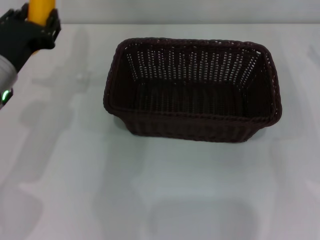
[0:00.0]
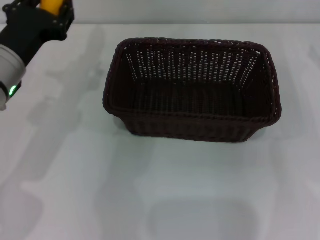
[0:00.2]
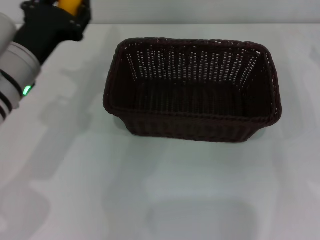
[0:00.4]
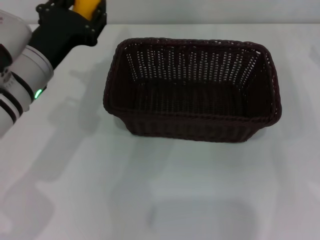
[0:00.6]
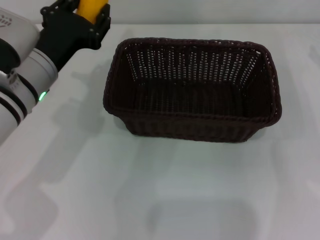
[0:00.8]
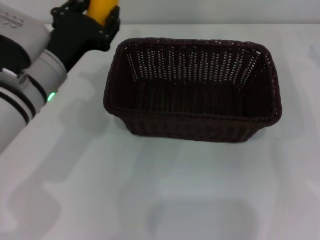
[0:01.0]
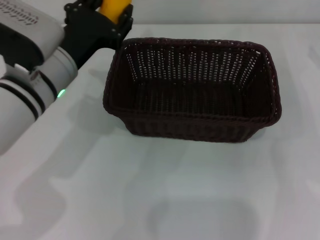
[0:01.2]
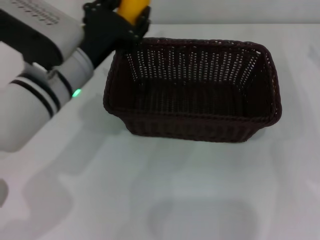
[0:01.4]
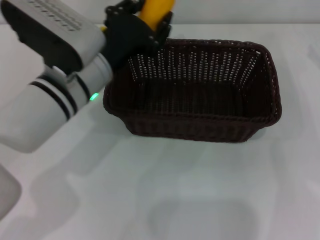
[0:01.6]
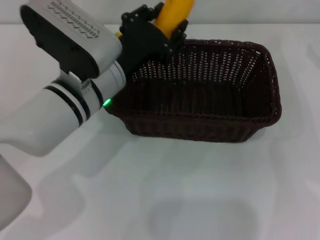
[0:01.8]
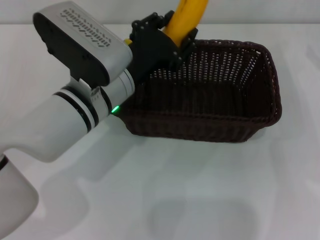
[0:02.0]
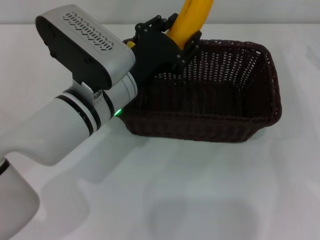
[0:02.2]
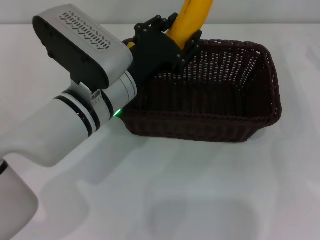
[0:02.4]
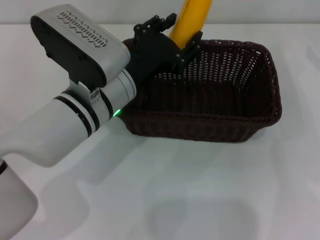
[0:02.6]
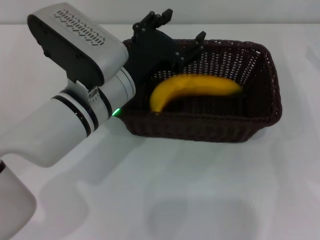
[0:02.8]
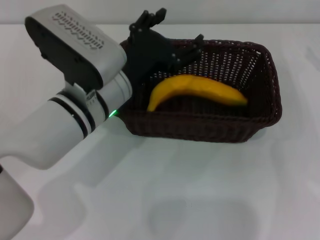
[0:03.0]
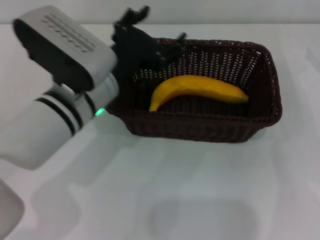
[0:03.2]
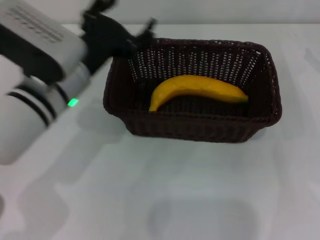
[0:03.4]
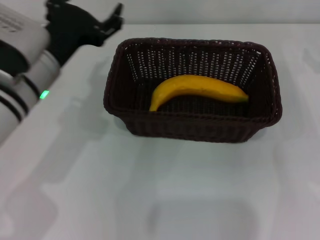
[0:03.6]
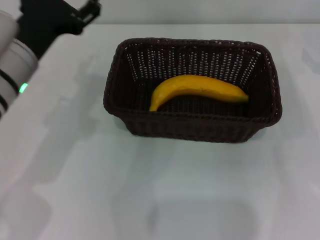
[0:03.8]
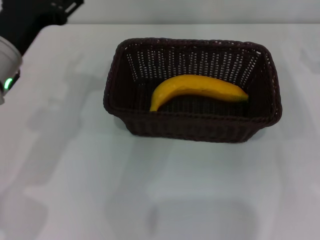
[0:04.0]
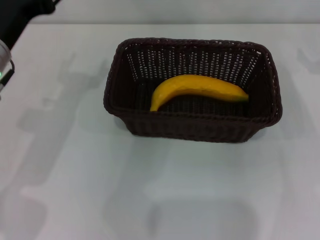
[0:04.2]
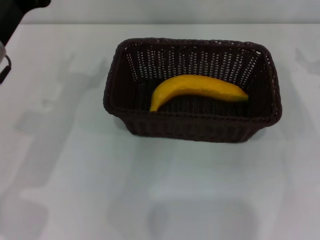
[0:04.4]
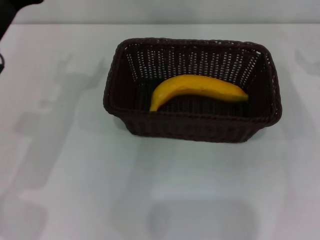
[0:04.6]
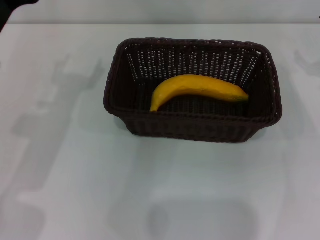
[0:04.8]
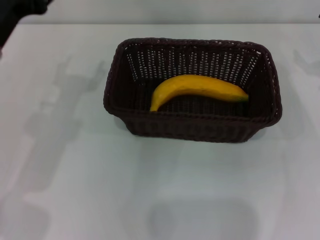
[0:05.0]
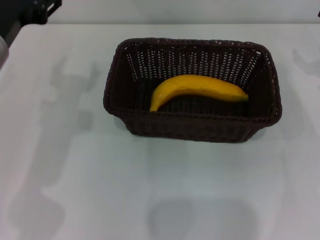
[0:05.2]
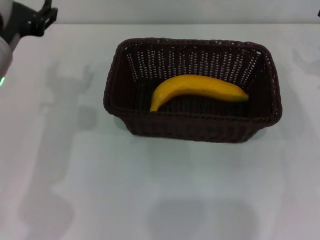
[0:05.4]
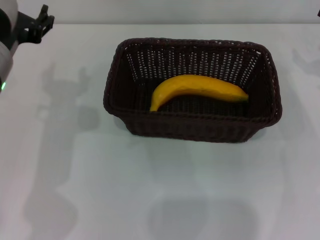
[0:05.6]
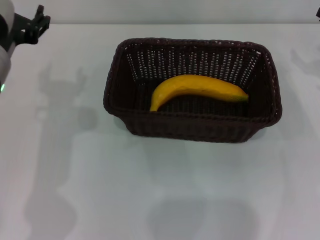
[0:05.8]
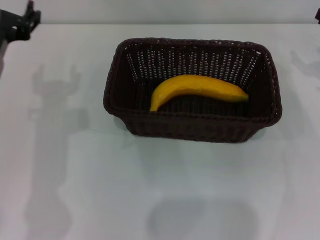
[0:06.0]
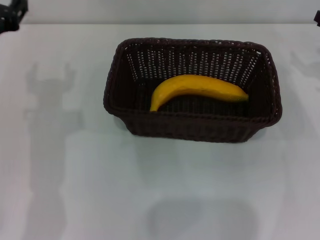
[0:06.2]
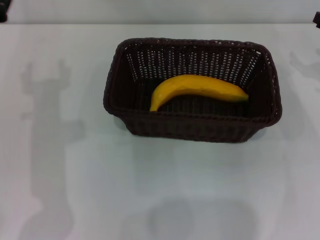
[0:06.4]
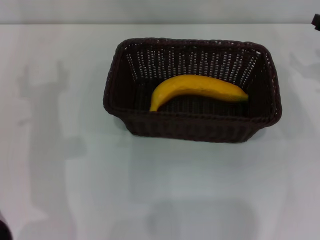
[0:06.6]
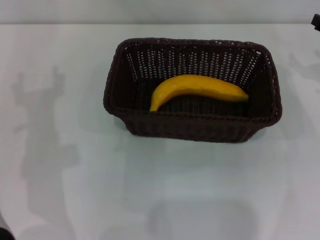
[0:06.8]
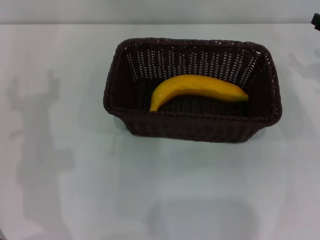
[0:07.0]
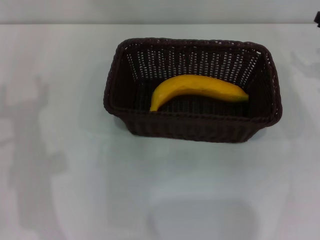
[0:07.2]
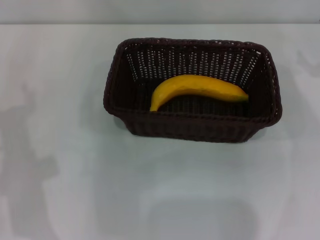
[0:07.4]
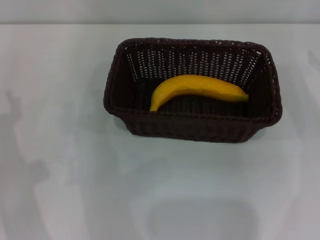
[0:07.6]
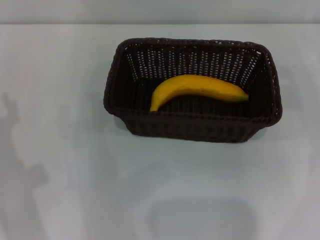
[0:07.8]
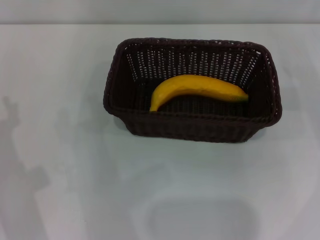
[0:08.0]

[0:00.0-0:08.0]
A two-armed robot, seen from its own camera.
Step, 0.0 to 2.6 s: Place the banana into the dark basket with the left gripper.
0.0 to 1.6 s: The left gripper goes roughly 10 cm to the right.
1.6 to 3.2 s: The left gripper opens its fingers.
3.2 to 4.8 s: The left gripper travels to the left and upward by approximately 10 cm.
6.4 to 8.0 s: The left gripper travels backward and downward by roughly 10 cm.

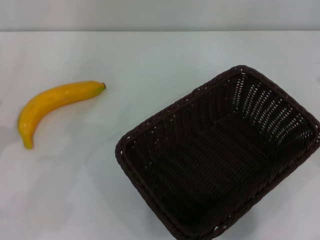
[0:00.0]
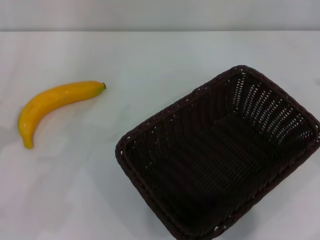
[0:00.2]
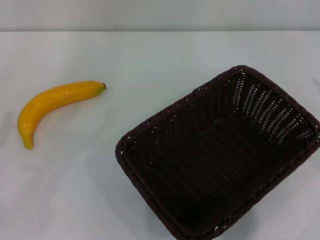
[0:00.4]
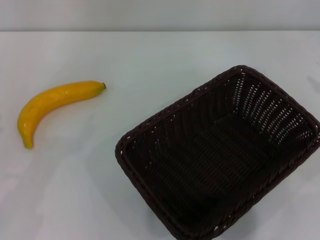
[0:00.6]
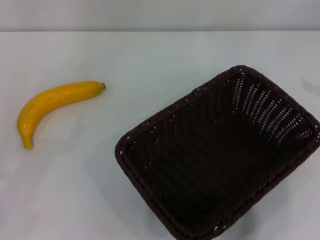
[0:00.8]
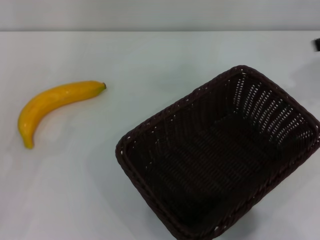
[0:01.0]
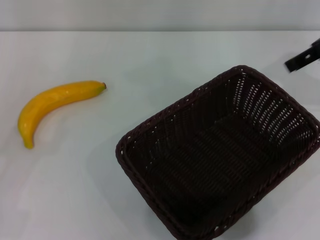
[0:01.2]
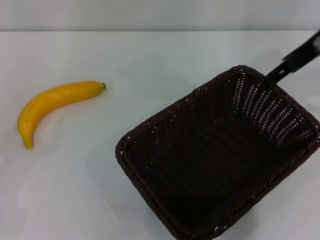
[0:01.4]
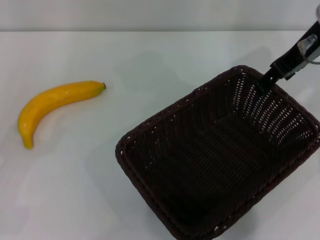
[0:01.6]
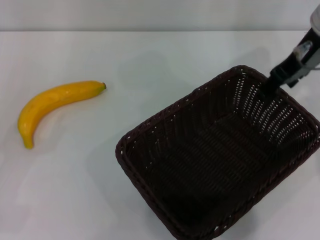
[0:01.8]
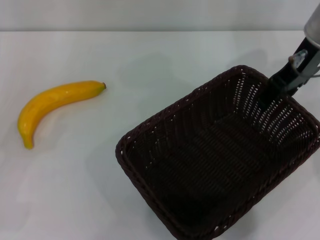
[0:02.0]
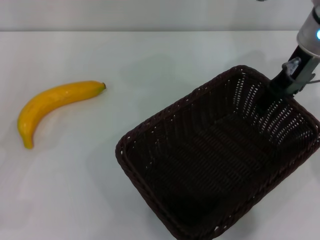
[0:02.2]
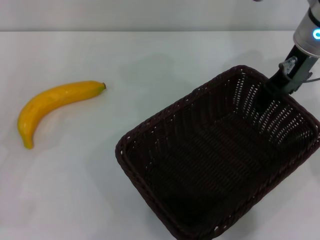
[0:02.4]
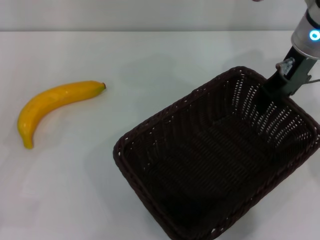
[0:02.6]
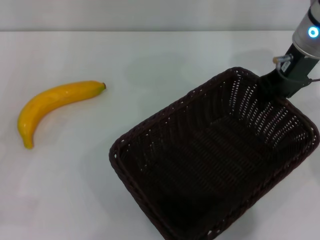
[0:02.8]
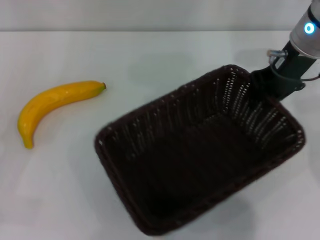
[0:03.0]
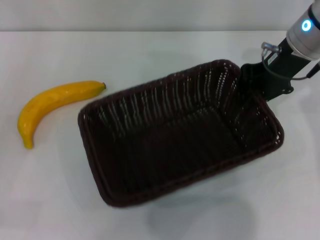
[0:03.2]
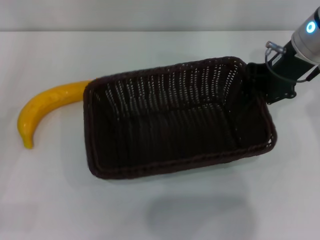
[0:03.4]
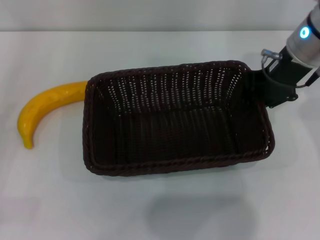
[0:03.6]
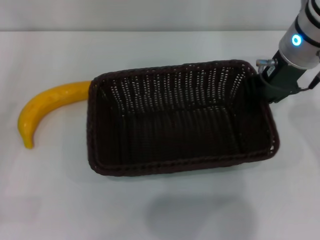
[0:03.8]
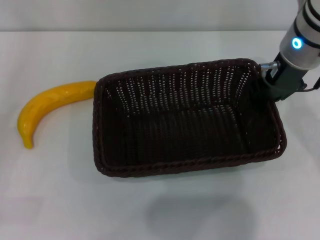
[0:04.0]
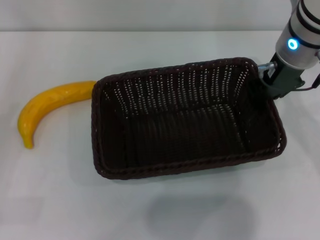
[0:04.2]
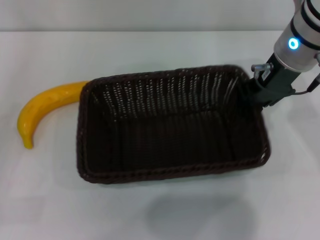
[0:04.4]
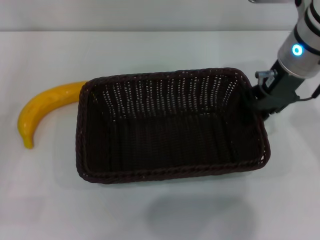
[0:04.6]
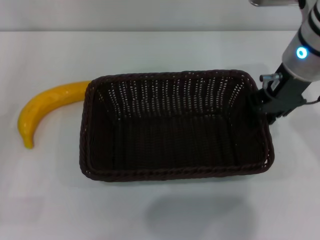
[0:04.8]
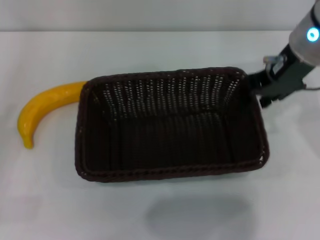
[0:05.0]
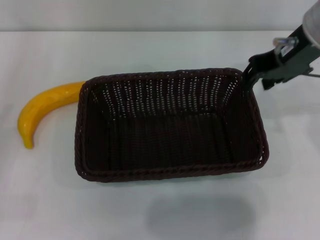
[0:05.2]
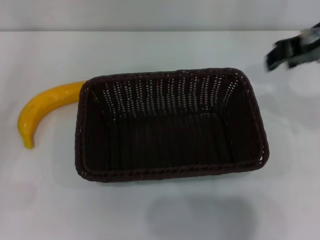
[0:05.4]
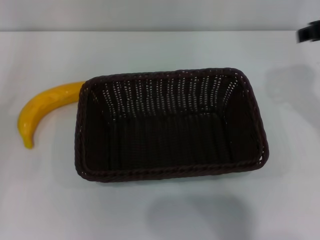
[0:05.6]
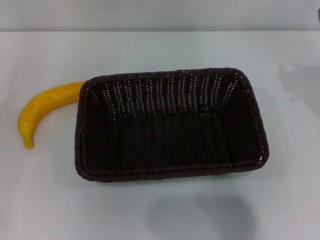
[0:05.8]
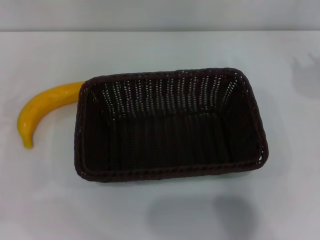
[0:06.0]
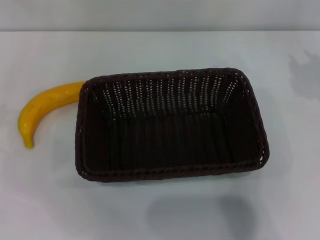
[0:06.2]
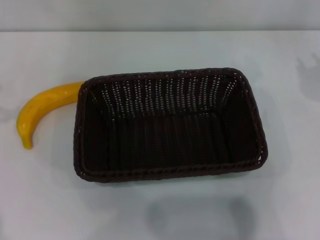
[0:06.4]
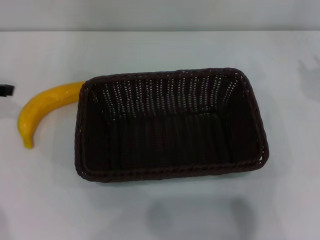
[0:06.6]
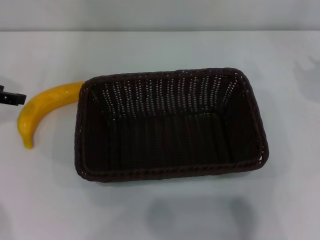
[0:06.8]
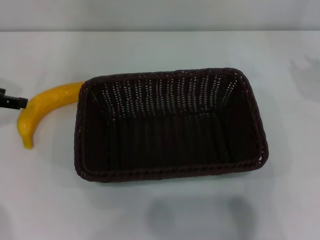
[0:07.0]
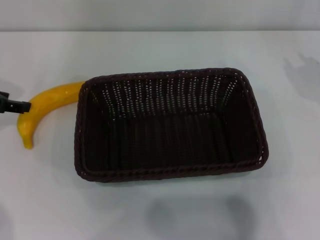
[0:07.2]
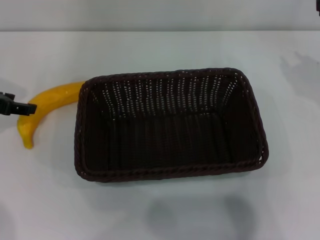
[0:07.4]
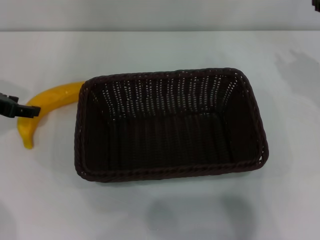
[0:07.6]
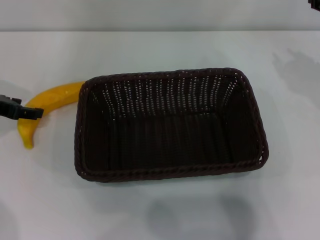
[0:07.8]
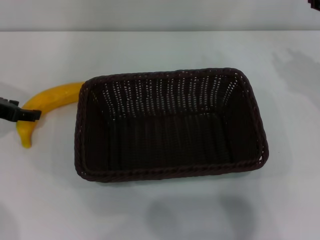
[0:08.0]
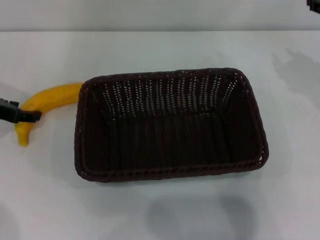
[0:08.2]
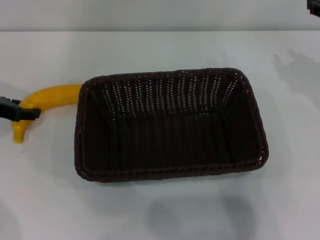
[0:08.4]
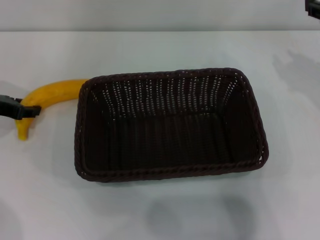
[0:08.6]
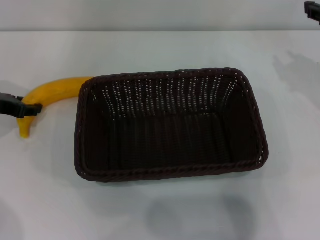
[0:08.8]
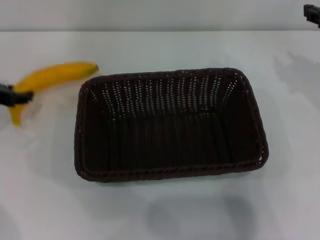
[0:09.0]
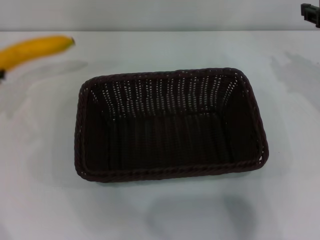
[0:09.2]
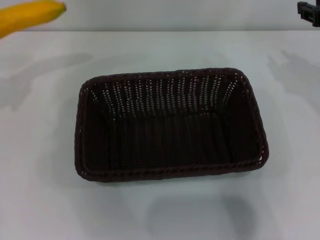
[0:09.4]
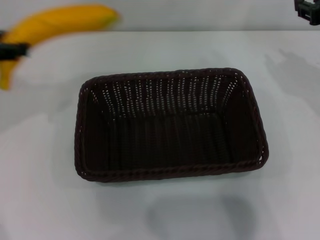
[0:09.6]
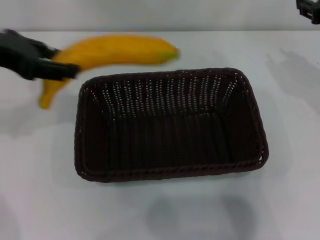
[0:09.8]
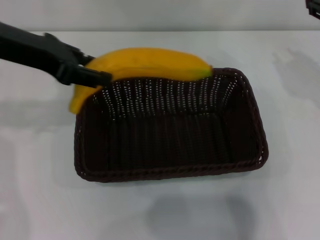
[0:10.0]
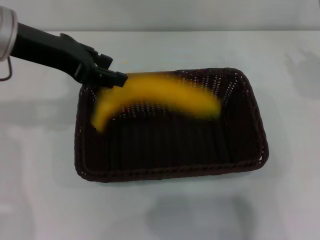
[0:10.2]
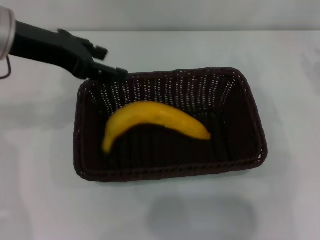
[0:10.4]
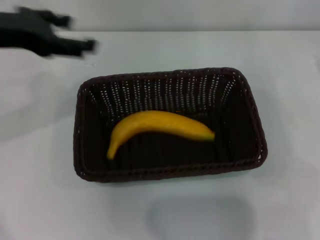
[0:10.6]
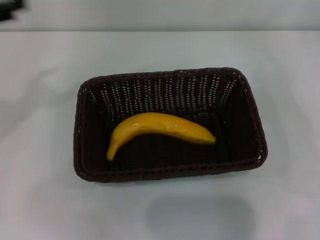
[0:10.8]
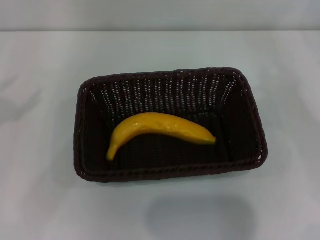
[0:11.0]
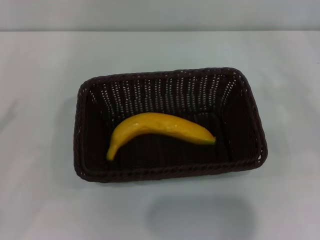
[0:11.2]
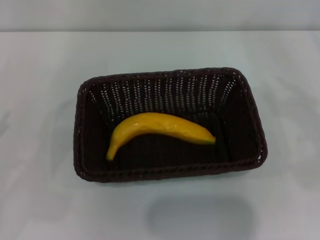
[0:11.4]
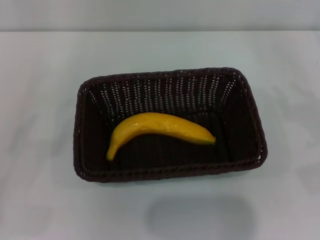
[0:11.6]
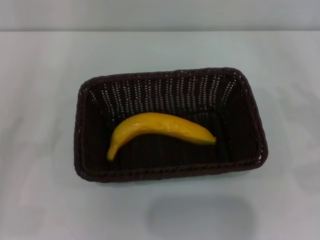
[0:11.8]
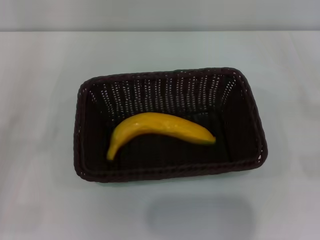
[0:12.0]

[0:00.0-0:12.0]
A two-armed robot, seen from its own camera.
Step, 0.0 to 3.0 s: Pick up the dark basket with the right gripper.
Step, 3.2 to 5.2 s: Place the dark basket in the center of view with the right gripper.
Step, 5.4 to 9.0 s: Pick up the banana with the left gripper.
Step, 9.2 to 10.4 s: Place the banana into the dark basket with the left gripper.
0.0 to 1.6 s: The right gripper shifts some 25 cm to the left and forward, and opens its fingers.
1.6 to 3.0 s: The right gripper closes.
4.4 to 6.0 s: The right gripper heads to the right, covering approximately 15 cm, while the left gripper heads forward and upward, covering some 15 cm.
6.0 to 7.6 s: The left gripper is displaced to the right, downward and forward by about 15 cm.
7.6 to 9.0 s: The left gripper closes up.
9.0 to 10.4 s: The right gripper heads to the right, covering roughly 5 cm. Meanwhile the left gripper heads upward and to the right, covering some 20 cm.
10.4 to 12.0 s: The left gripper travels to the left, downward and backward by roughly 30 cm, and opens its fingers. The right gripper goes about 20 cm downward, to the right and backward.

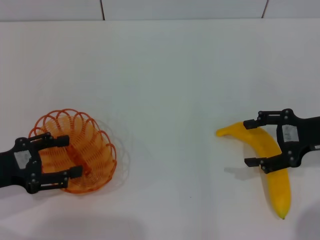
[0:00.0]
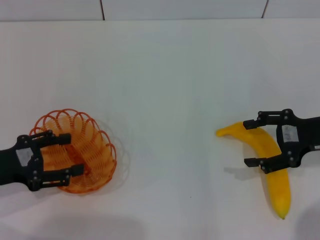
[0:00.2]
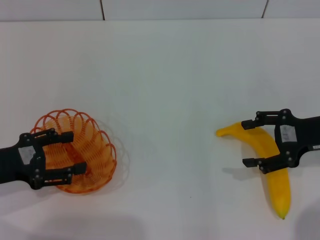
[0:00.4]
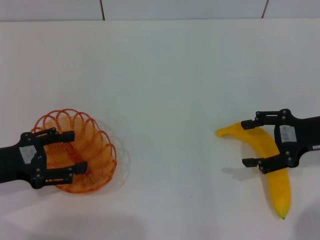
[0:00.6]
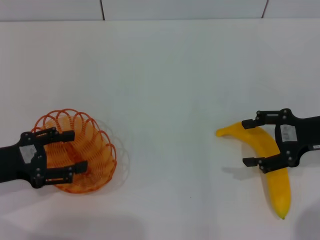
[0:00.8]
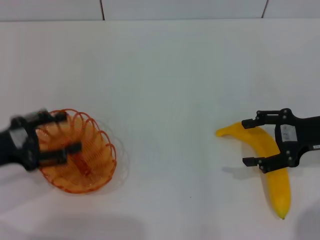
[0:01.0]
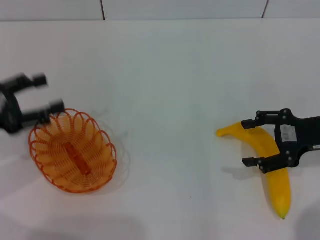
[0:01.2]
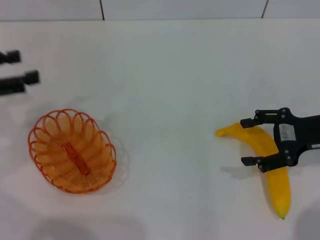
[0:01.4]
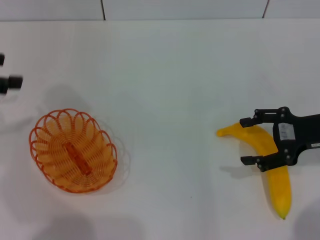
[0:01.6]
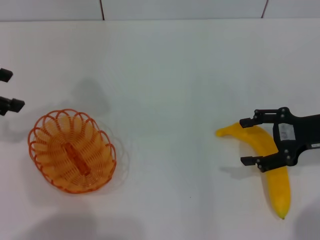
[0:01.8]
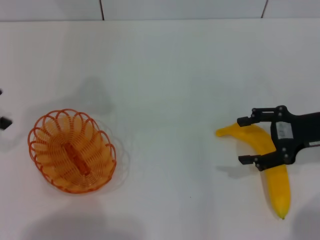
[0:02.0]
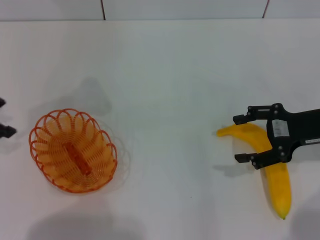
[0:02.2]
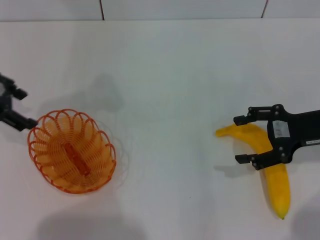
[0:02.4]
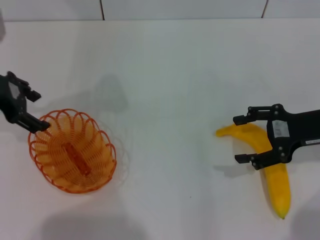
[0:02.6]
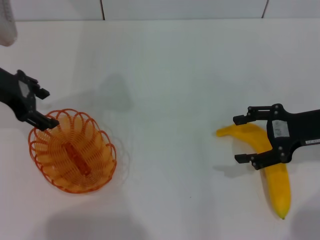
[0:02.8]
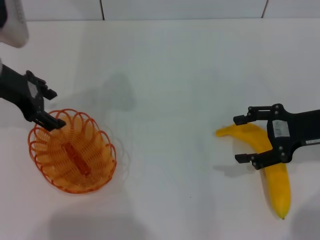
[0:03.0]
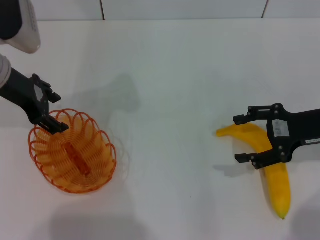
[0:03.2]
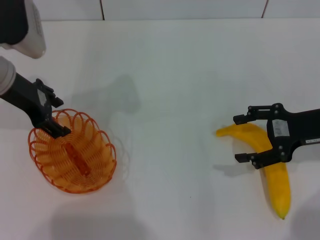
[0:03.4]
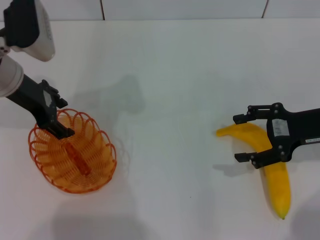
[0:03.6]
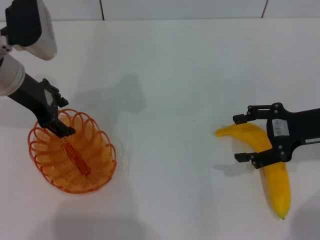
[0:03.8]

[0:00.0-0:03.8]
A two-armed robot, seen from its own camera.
0.0 to 1.2 s: The left gripper shifts by approximately 5 cm.
1.2 to 2.6 s: The left gripper shifts about 15 cm forward, upward and to the right.
2.6 to 3.8 s: The left gripper ends up some 5 cm from where it was.
